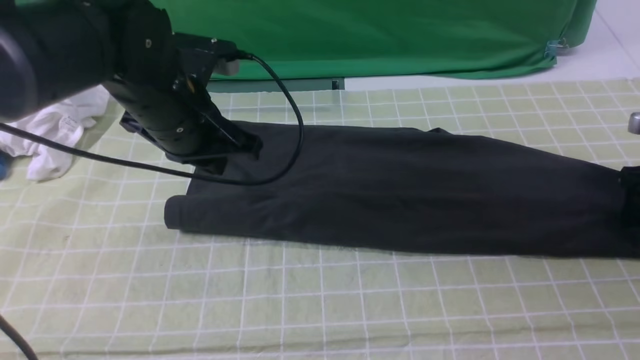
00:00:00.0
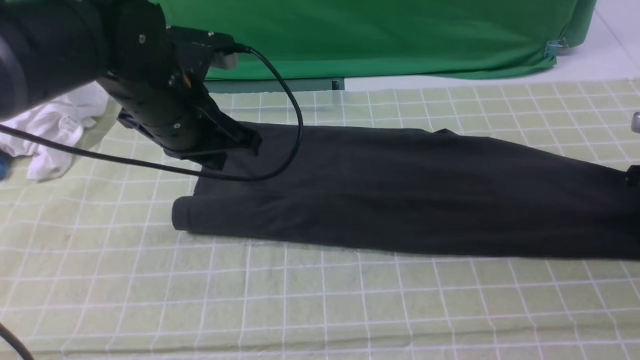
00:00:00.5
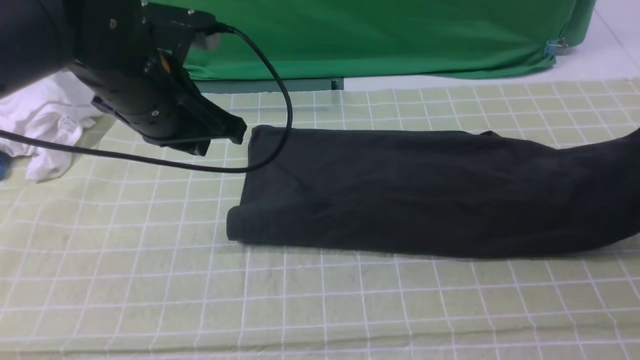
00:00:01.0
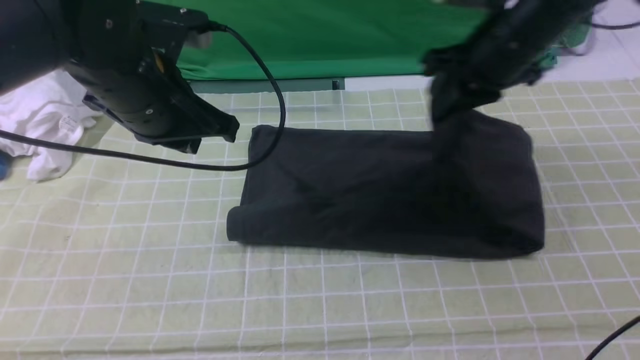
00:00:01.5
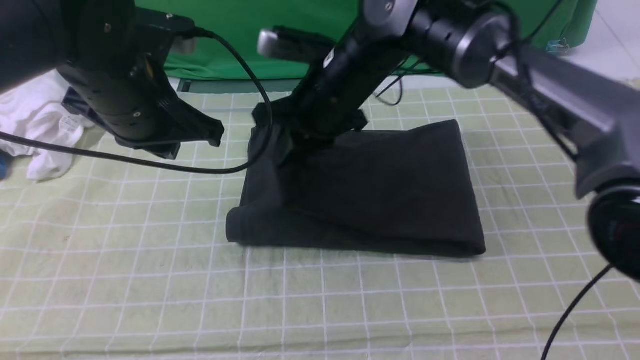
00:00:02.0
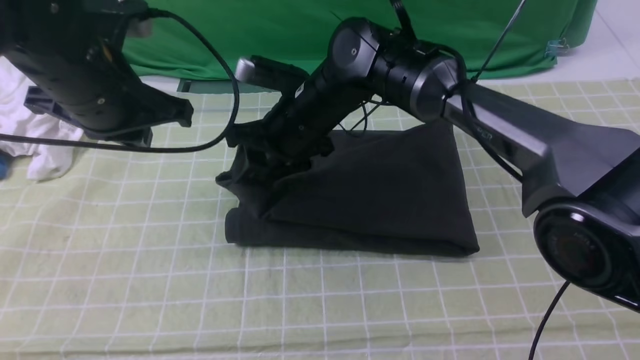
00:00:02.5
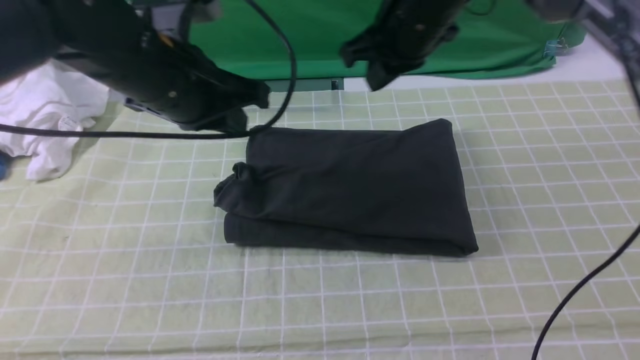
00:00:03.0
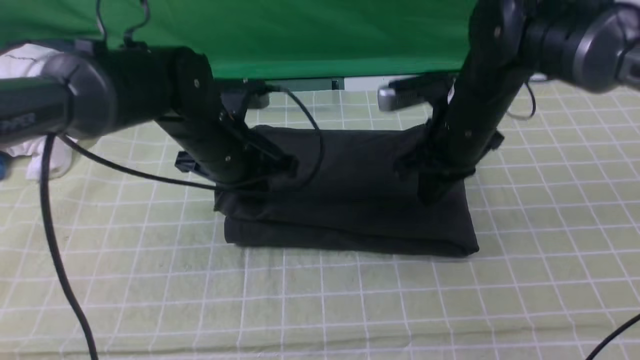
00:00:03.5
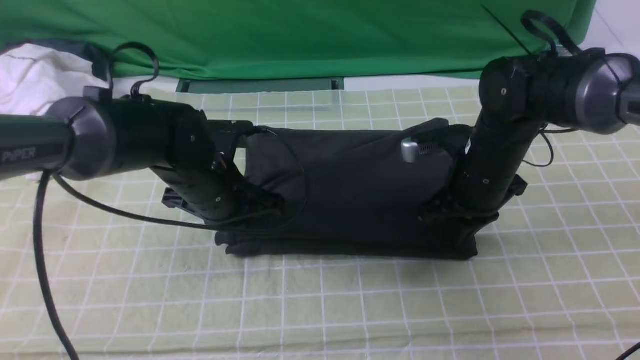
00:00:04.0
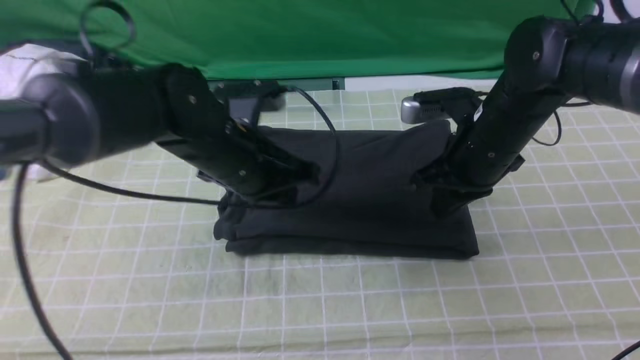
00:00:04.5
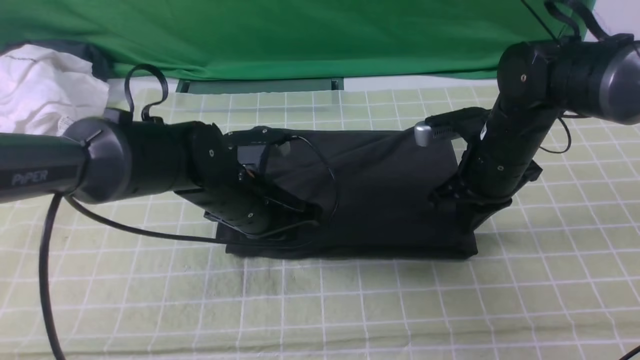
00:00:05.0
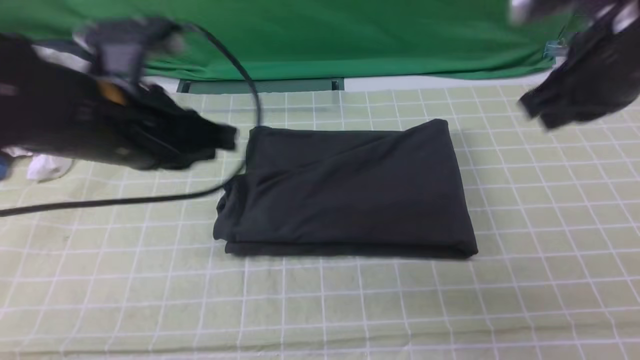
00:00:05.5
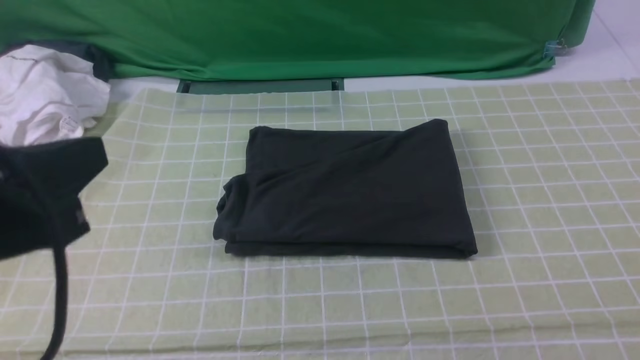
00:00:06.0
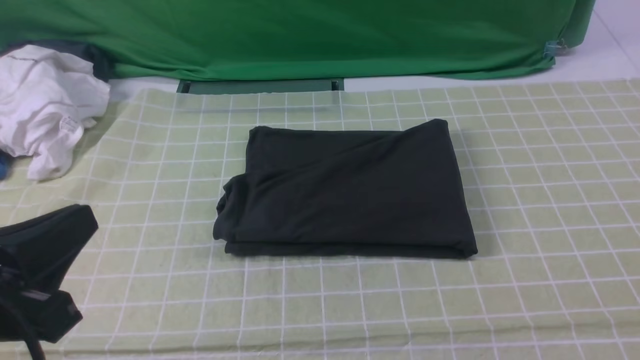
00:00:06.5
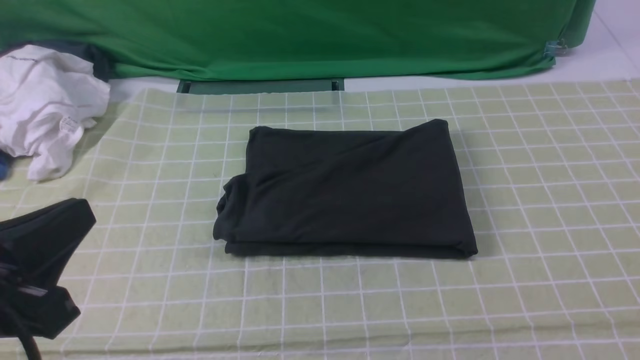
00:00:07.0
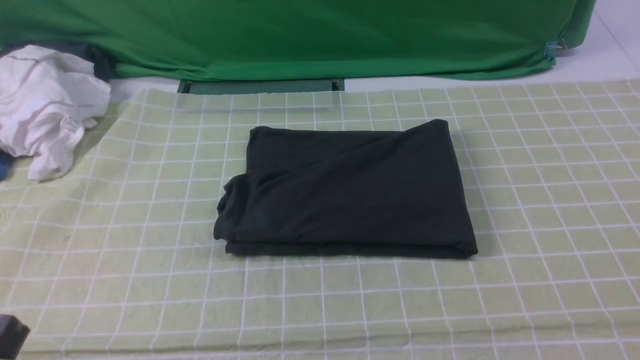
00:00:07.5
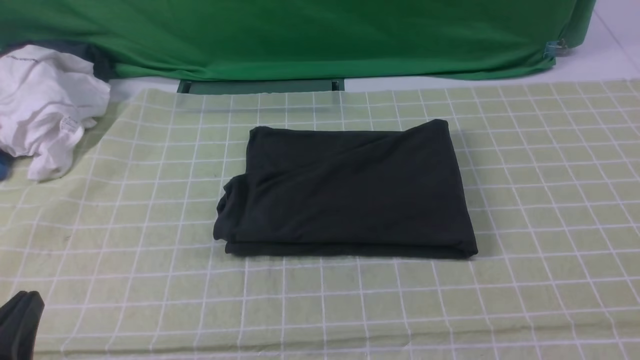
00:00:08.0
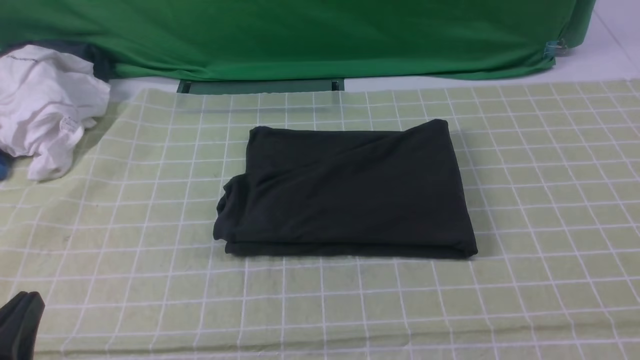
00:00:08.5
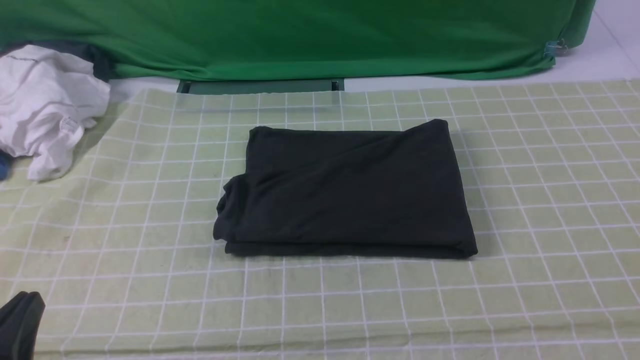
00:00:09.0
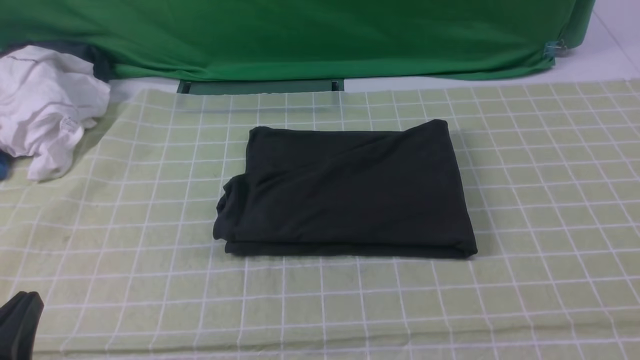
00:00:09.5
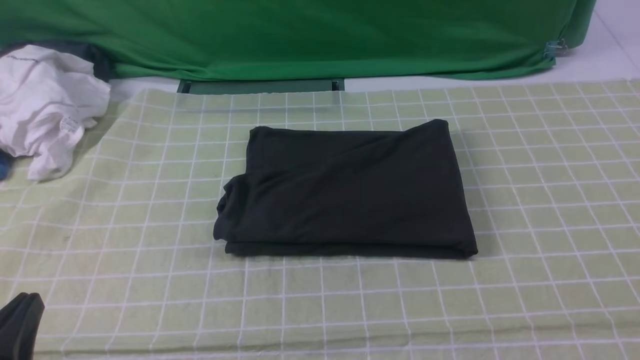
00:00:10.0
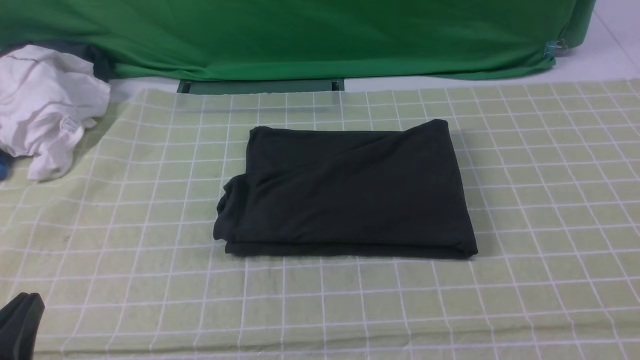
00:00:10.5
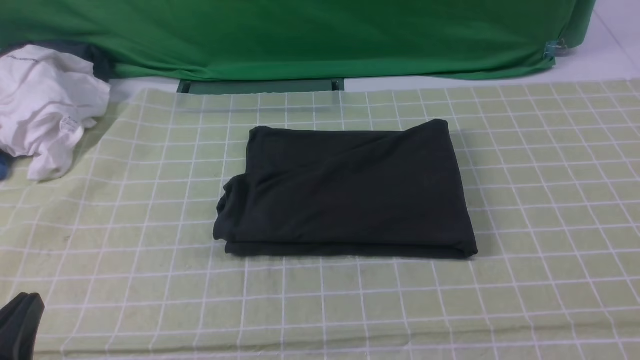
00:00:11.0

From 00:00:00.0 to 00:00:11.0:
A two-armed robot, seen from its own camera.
Step, from 00:00:00.5 to 00:00:02.5: use the right arm to drag the right edge of the fabric to the left and folds it over the left edge.
From 00:00:00.0 to 00:00:02.0: The right gripper shifts approximately 40 cm to the left, and closes.
From 00:00:02.0 to 00:00:03.5: The right gripper heads to the right, covering roughly 15 cm, and opens, then closes once more; the left gripper goes some 10 cm downward.
From 00:00:03.5 to 00:00:05.5: The right gripper is displaced upward, to the right and backward by about 20 cm; the left gripper goes some 15 cm upward and backward.
From 00:00:05.5 to 00:00:07.5: The left gripper travels backward and to the left by roughly 20 cm, while the right gripper heads backward, covering some 25 cm, and opens.
From 00:00:07.5 to 00:00:09.0: The left gripper moves downward, about 5 cm.
